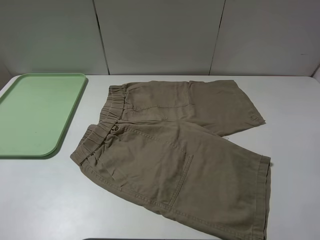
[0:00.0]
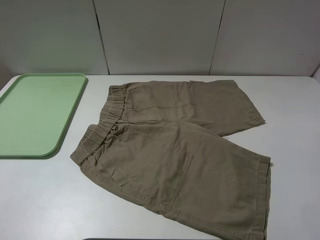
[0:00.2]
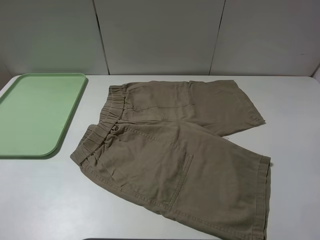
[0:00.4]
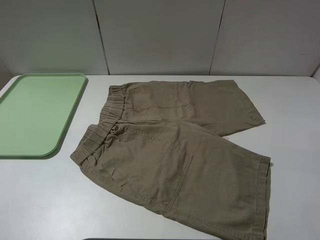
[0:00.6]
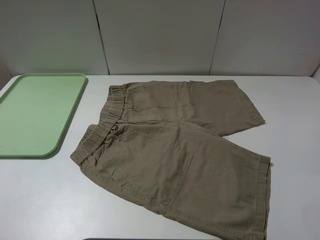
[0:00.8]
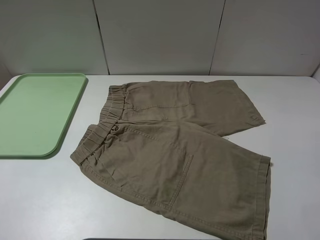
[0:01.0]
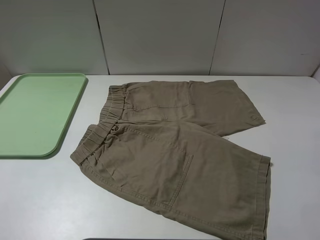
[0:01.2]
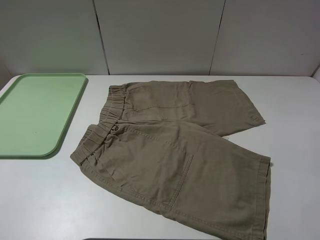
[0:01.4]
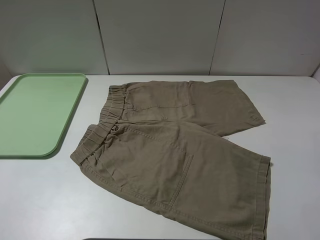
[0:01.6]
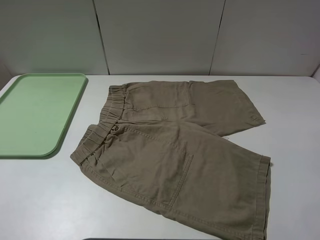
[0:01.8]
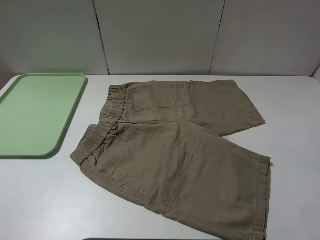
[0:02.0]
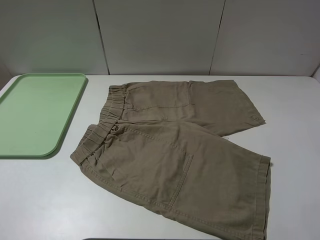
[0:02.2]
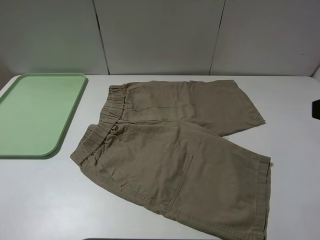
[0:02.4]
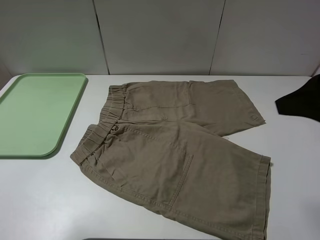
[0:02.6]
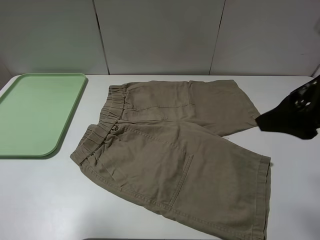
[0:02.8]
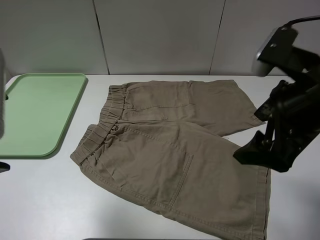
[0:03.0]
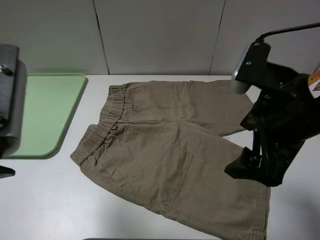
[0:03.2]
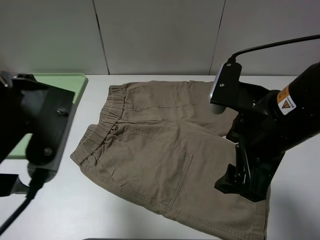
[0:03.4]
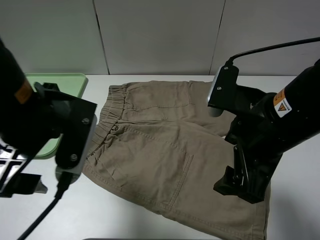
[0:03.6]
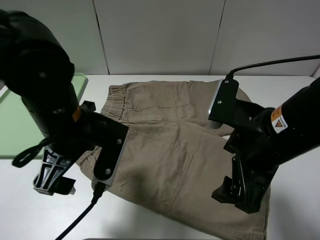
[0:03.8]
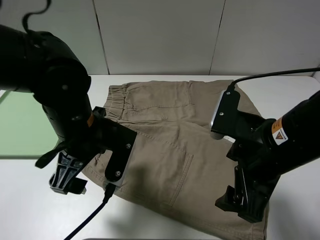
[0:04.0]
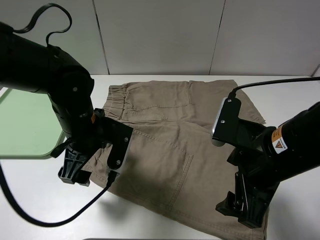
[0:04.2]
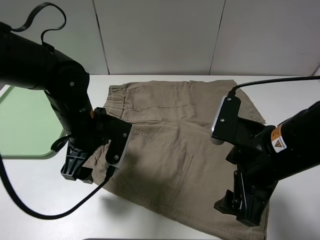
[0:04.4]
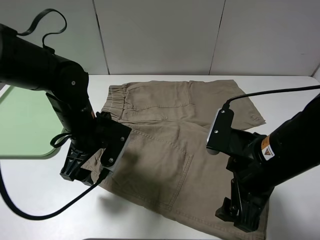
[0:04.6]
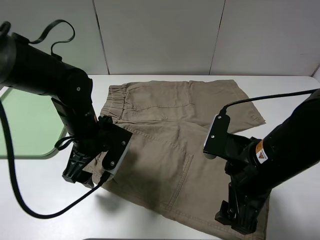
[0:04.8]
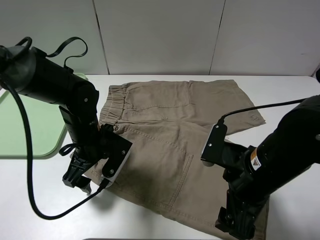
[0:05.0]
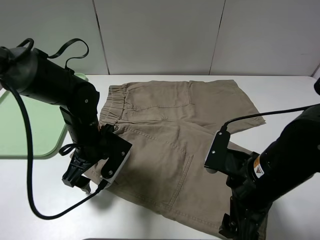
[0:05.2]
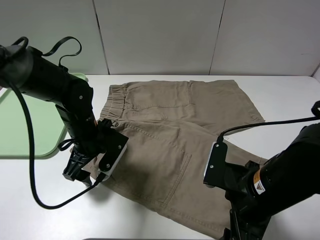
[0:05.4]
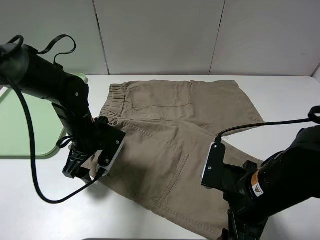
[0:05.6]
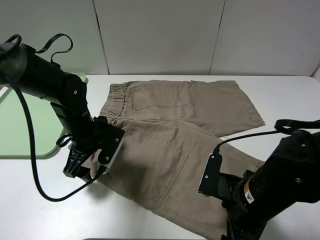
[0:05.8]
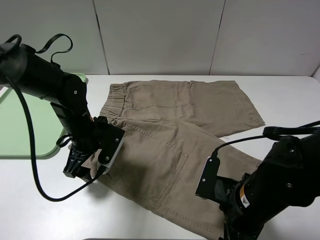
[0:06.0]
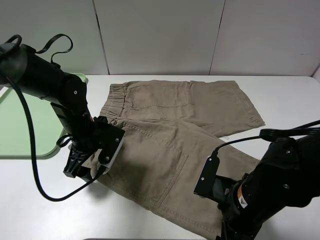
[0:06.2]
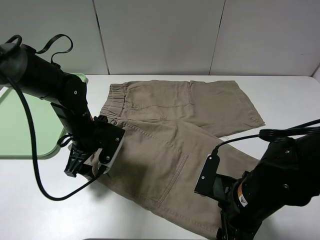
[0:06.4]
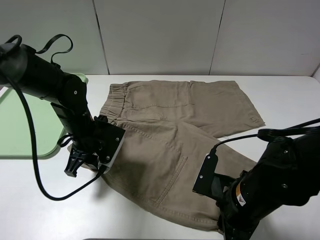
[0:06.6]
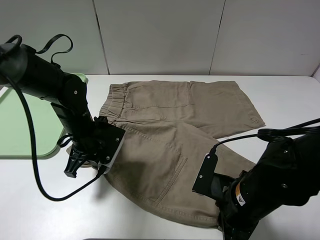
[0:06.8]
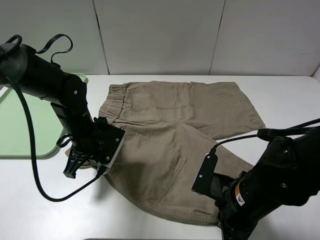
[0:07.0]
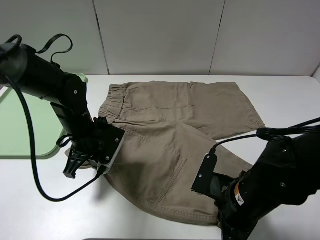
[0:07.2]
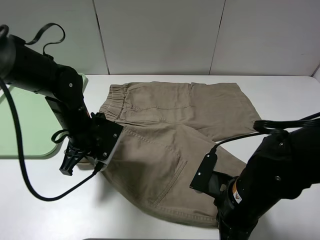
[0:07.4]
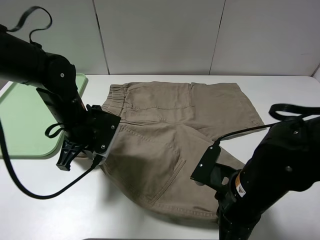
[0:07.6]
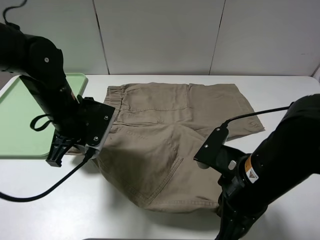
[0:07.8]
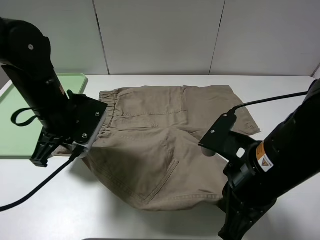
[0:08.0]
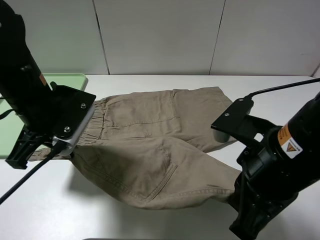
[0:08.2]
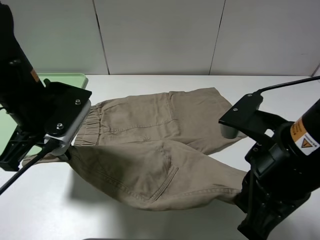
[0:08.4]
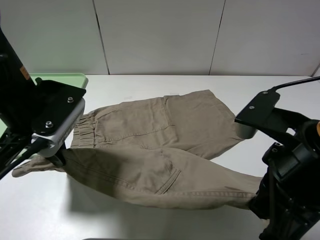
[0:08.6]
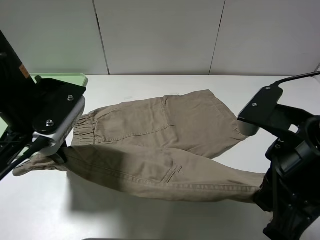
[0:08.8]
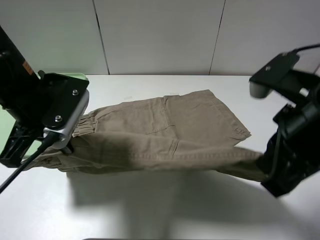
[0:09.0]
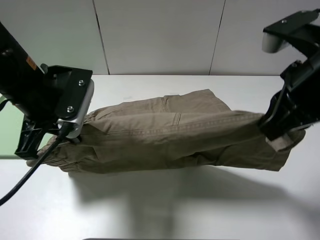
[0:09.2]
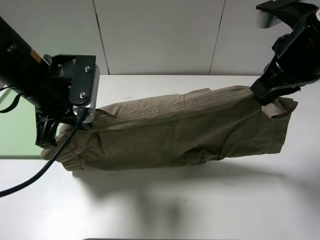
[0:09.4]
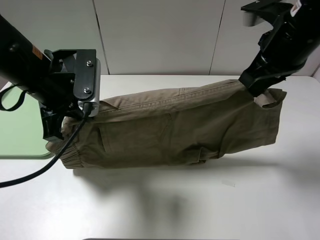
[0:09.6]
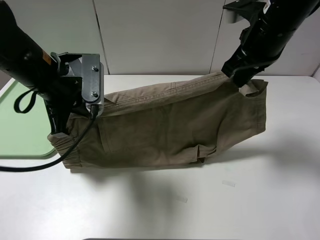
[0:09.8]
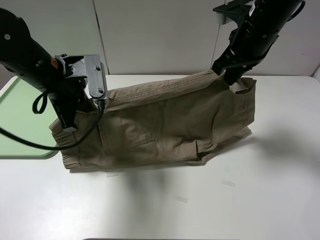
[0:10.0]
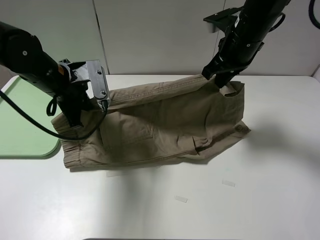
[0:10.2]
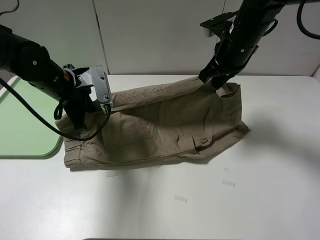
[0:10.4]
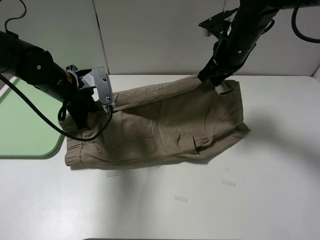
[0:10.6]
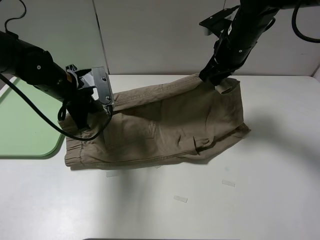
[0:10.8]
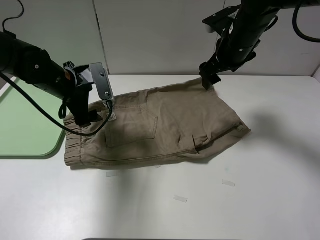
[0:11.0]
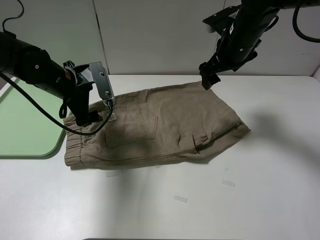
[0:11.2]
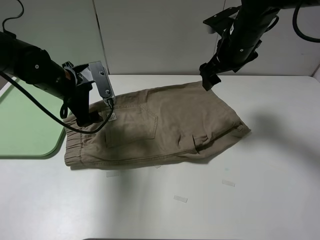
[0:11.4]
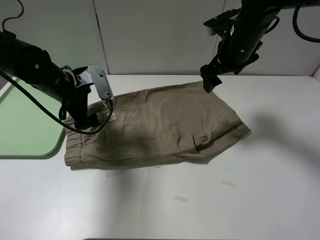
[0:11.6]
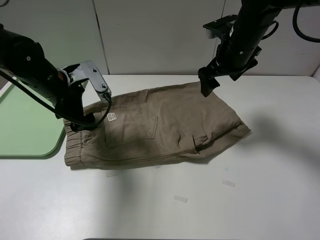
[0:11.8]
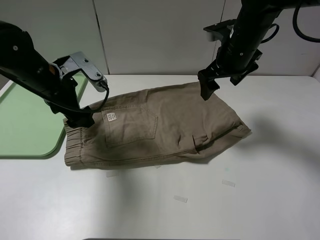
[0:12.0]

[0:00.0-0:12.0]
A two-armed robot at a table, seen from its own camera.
Task of the whole recording: fold the khaki jeans in half with two grippers, then fold them in half again, and use the left claw to place the folded fold khaki jeans on the tray.
Step, 0:00.0 to 0:07.0: Grasp the khaki trousers with the left gripper.
Step, 0:07.2 to 0:11.0: Fold the khaki trousers upwards with the left gripper.
0:00.0 to 0:01.6: The two grippers keep their place.
0:01.6 to 0:03.0: The left gripper goes about 15 cm forward and to the right. Meanwhile the right gripper shifts some 20 cm forward and to the left.
0:03.0 to 0:04.4: The right gripper travels downward by about 10 cm. The left gripper shifts some 25 cm downward, forward and to the right.
0:04.4 to 0:06.0: The right gripper moves downward, approximately 10 cm. The left gripper goes about 5 cm downward.
0:06.0 to 0:07.6: The right gripper closes its fingers; the left gripper closes.
0:07.6 to 0:09.0: The right gripper goes roughly 15 cm upward; the left gripper heads upward, covering some 10 cm.
0:09.0 to 0:10.4: The right gripper heads forward, covering roughly 25 cm; the left gripper travels forward and downward by about 15 cm.
0:10.4 to 0:12.0: The right gripper opens. The left gripper opens up.

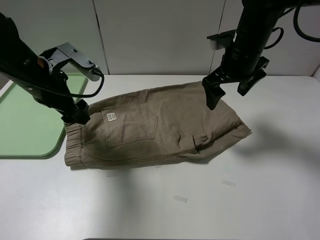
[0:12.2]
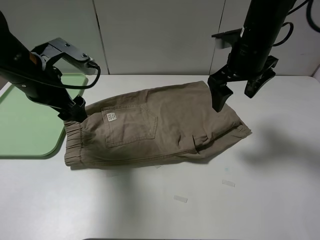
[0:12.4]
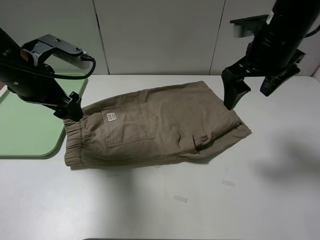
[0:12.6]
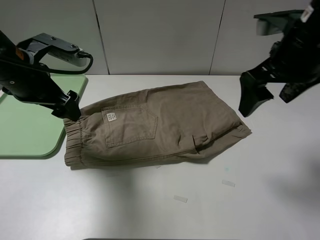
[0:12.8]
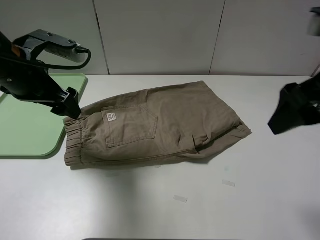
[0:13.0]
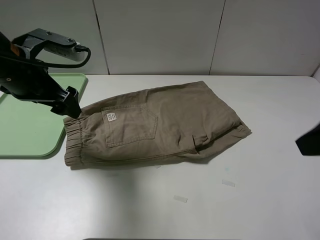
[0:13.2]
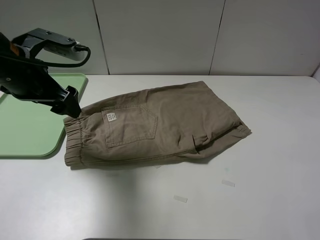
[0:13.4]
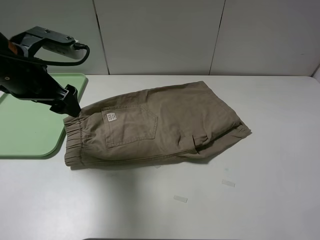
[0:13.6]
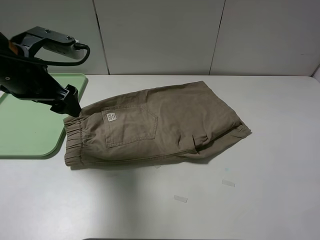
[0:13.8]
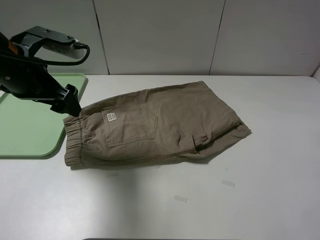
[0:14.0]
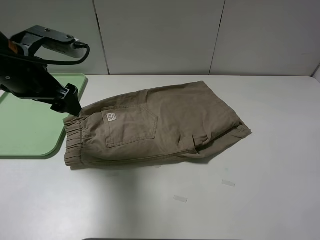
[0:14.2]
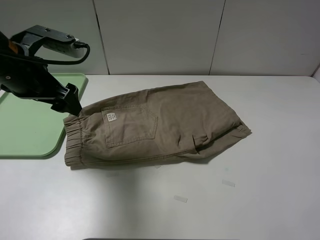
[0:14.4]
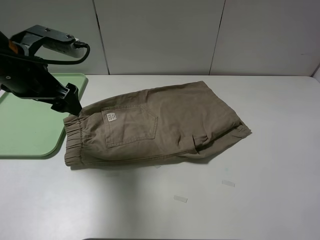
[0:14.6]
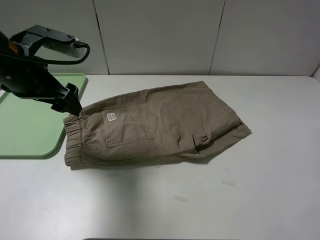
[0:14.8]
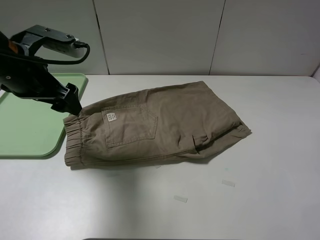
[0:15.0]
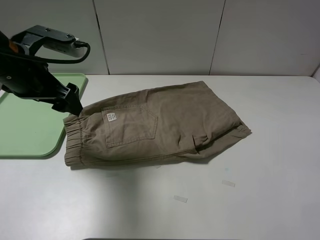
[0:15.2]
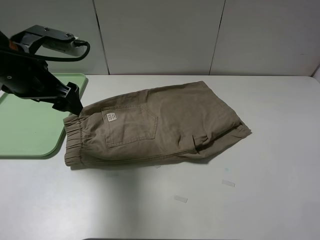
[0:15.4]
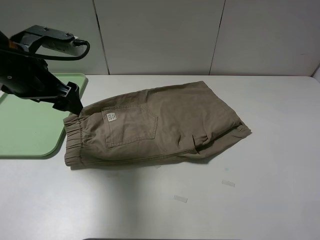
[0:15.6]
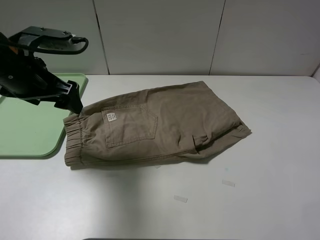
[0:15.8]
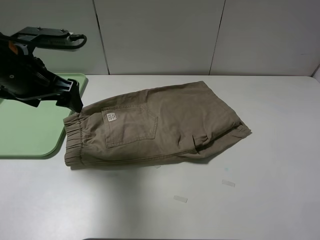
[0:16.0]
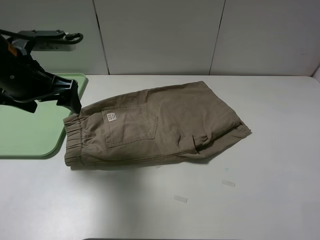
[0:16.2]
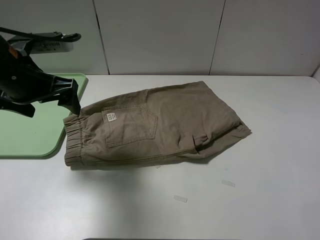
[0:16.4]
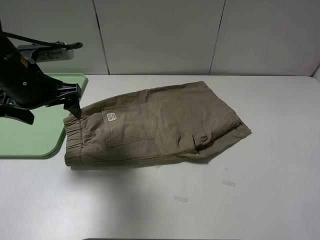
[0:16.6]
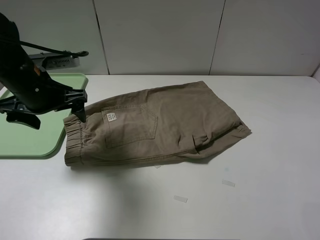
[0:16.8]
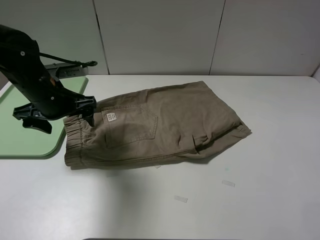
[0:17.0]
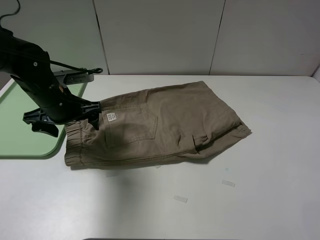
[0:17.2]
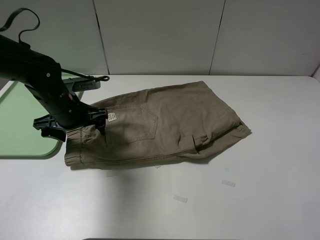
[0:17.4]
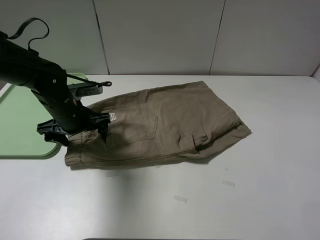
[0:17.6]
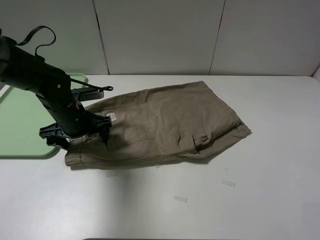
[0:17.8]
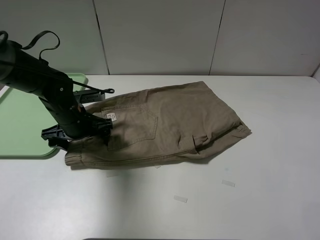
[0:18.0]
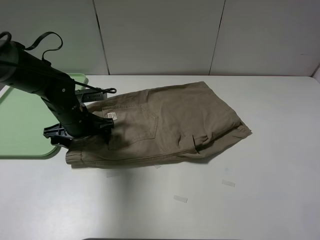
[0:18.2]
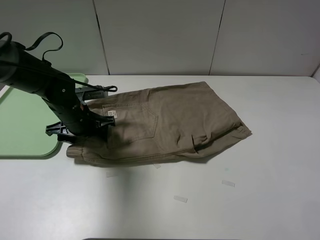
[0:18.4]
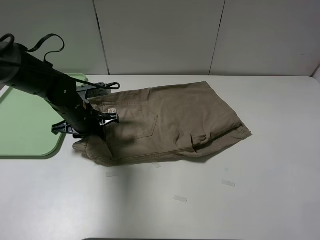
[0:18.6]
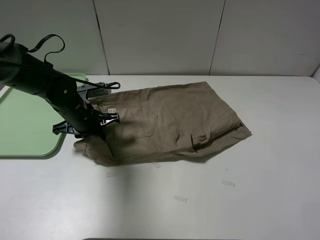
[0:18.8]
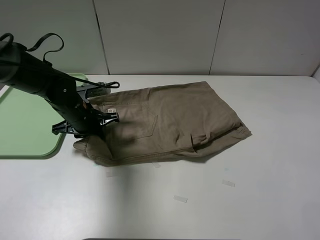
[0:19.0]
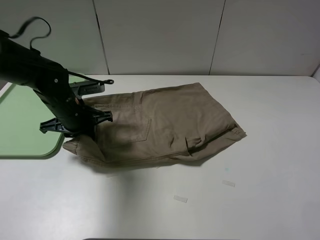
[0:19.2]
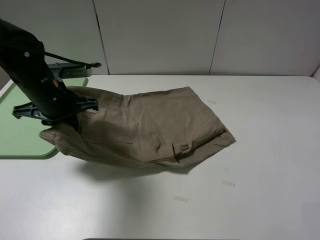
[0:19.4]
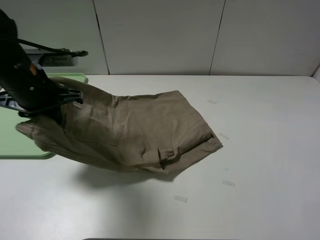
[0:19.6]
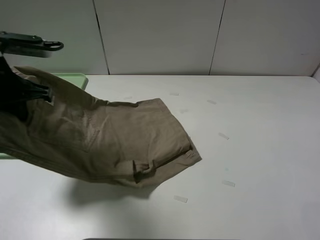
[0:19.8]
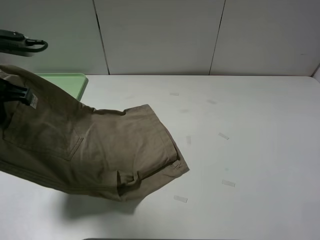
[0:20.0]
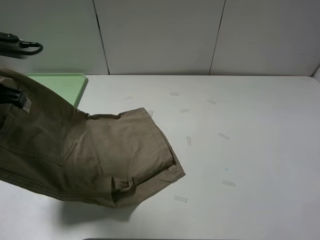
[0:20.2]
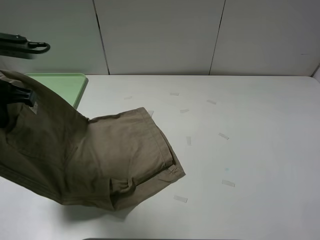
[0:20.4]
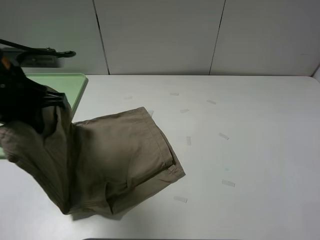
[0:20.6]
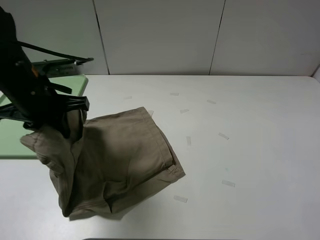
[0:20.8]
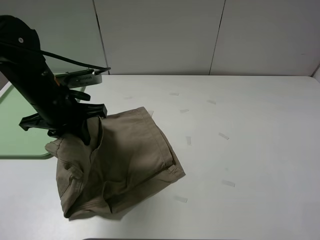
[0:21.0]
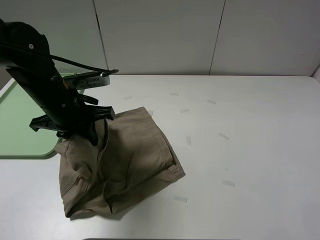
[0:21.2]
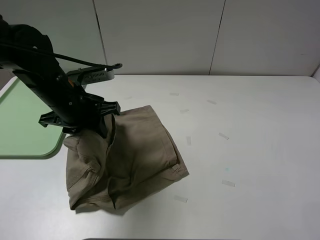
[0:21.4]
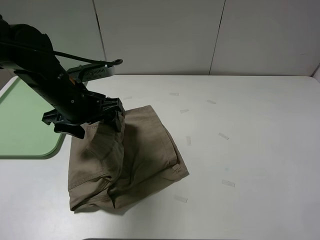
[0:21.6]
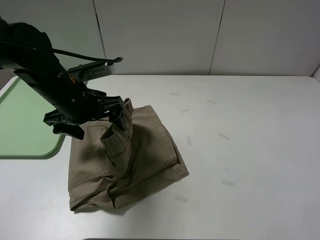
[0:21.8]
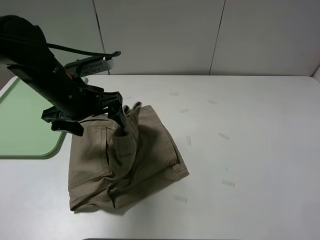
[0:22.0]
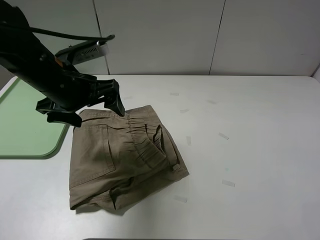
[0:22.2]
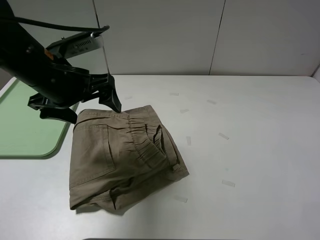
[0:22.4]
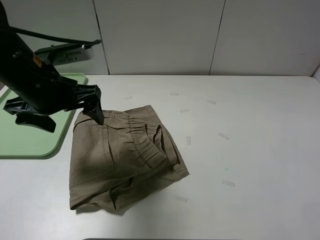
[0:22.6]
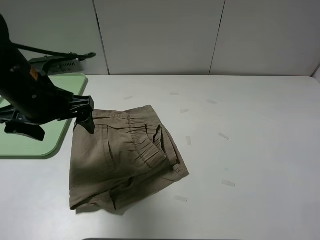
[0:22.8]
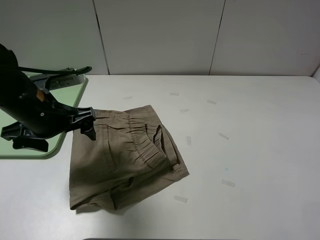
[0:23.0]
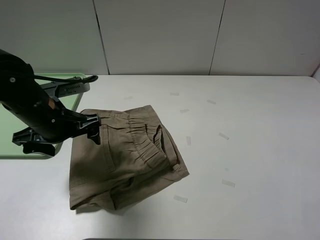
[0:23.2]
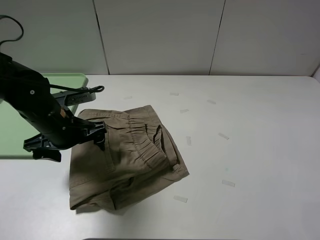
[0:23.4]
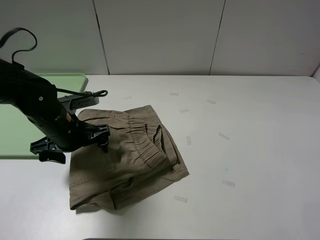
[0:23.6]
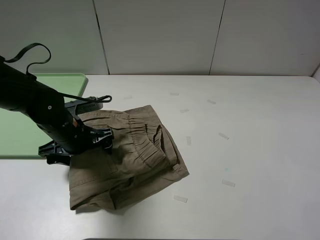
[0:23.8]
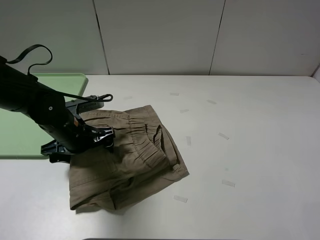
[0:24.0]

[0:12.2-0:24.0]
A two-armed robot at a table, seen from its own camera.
Task of the whole recording: fold the khaki jeans in half with two grippers, then fold them in half again, and use the left claw to place the folded fold khaki jeans on the tray.
Step, 0:12.2 to 0:18.6: Grasp the khaki trousers with the left gripper.
Step, 0:18.8 to 0:22.0: Fold the khaki trousers from left to right with the left gripper.
0:12.2 to 0:13.6: The right gripper shifts about 35 cm backward.
0:16.6 to 0:18.2: The left gripper heads downward, covering approximately 15 cm.
0:18.2 to 0:19.6: The left gripper heads upward, covering approximately 15 cm, and closes its fingers.
0:19.6 to 0:21.0: The left gripper shifts by approximately 5 cm.
0:21.0 to 0:22.6: The left gripper heads upward, covering about 5 cm, and opens.
0:22.6 to 0:24.0: The left gripper goes approximately 15 cm downward.
